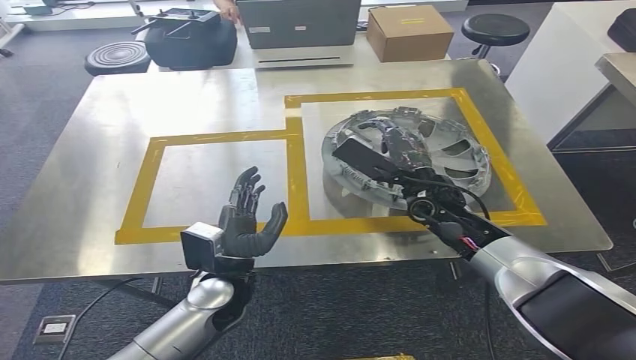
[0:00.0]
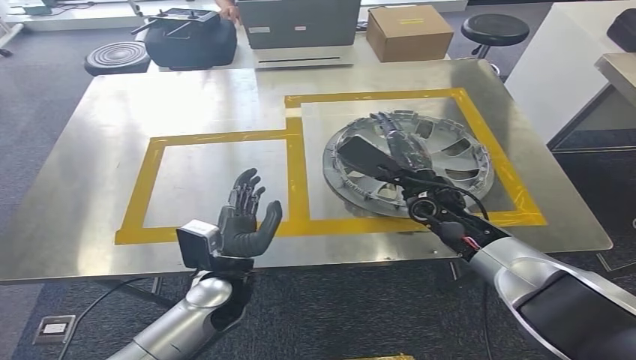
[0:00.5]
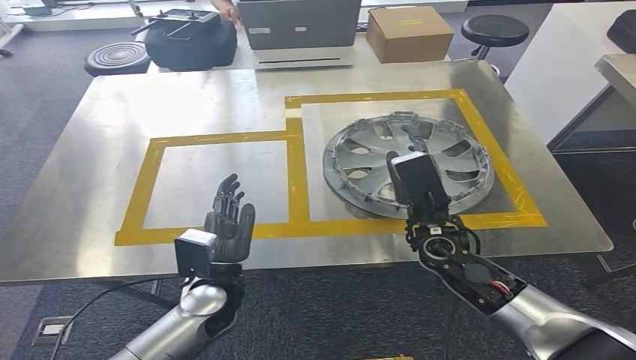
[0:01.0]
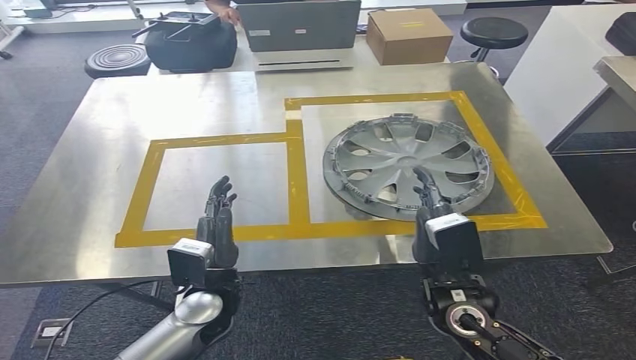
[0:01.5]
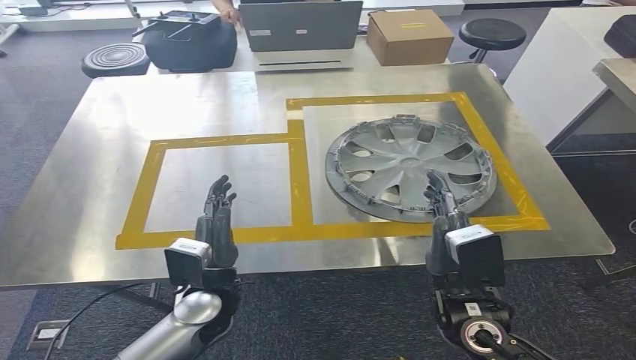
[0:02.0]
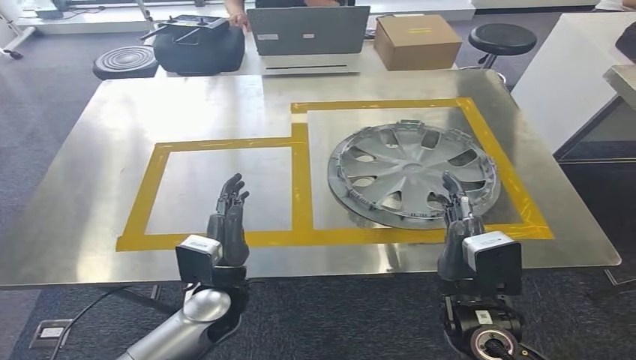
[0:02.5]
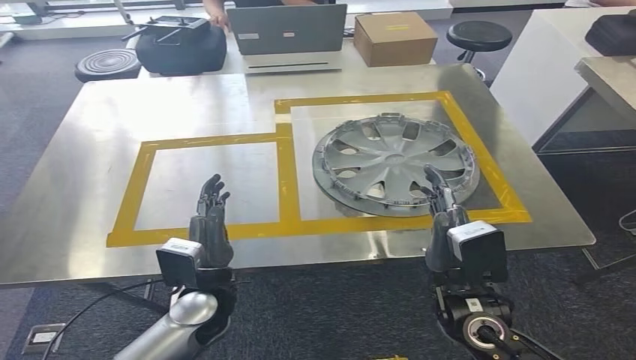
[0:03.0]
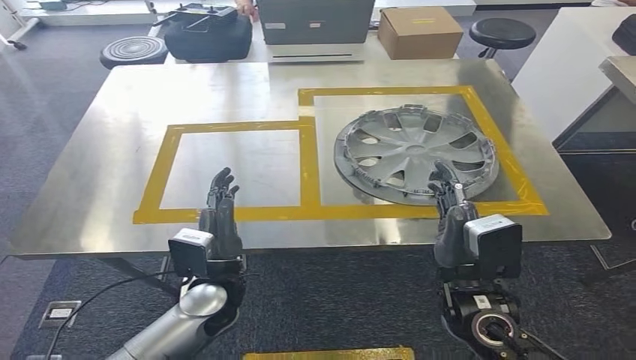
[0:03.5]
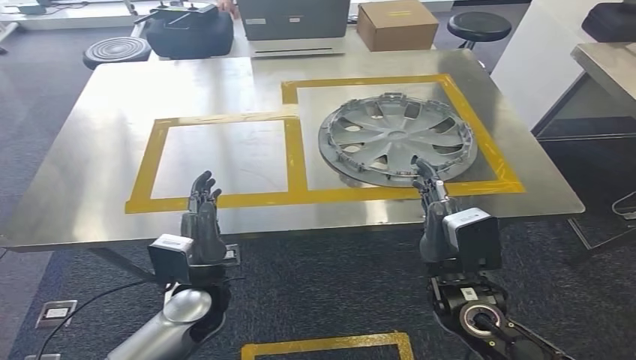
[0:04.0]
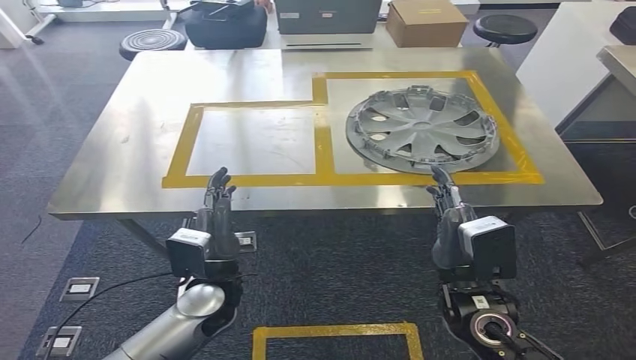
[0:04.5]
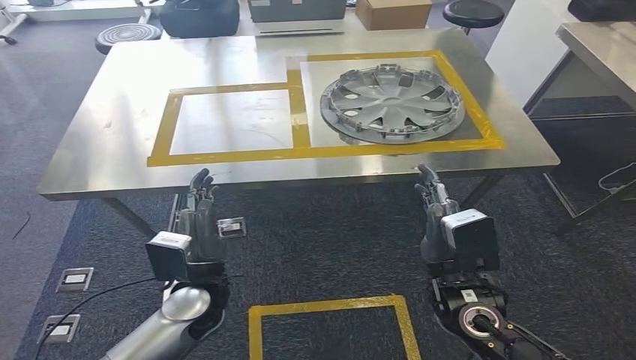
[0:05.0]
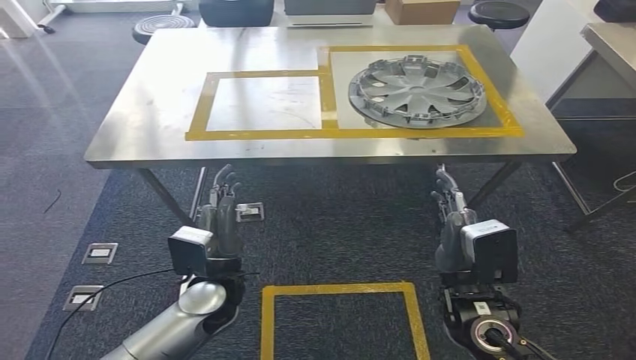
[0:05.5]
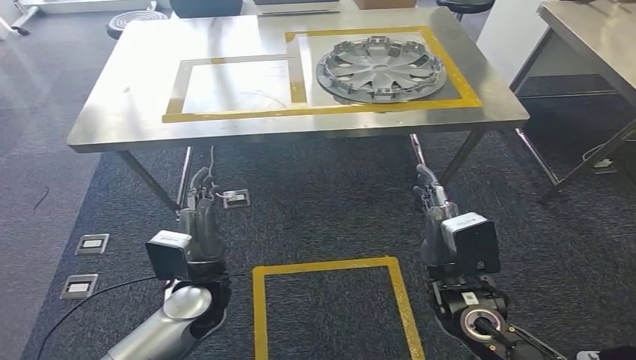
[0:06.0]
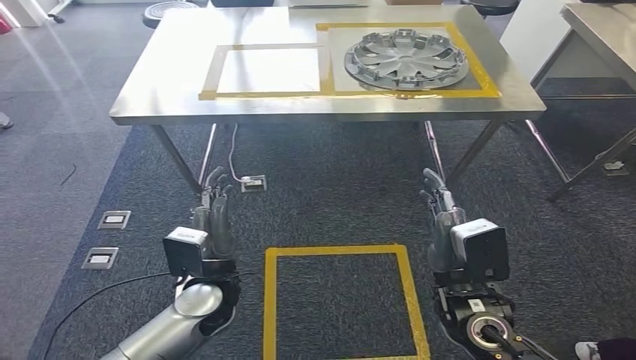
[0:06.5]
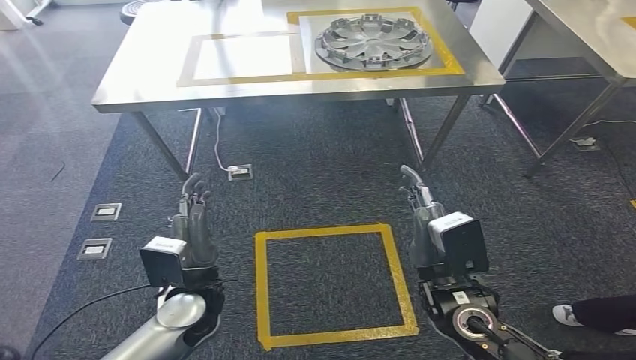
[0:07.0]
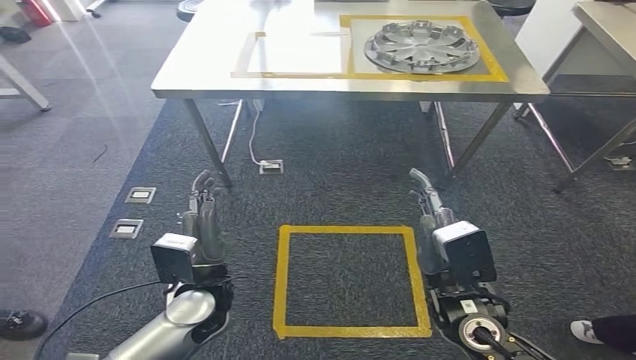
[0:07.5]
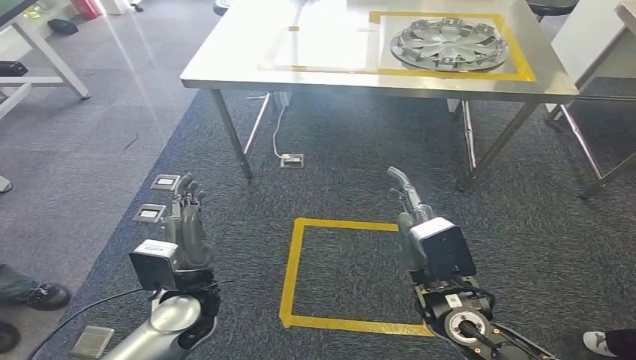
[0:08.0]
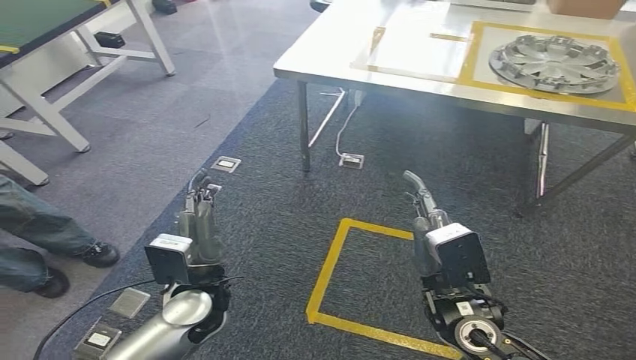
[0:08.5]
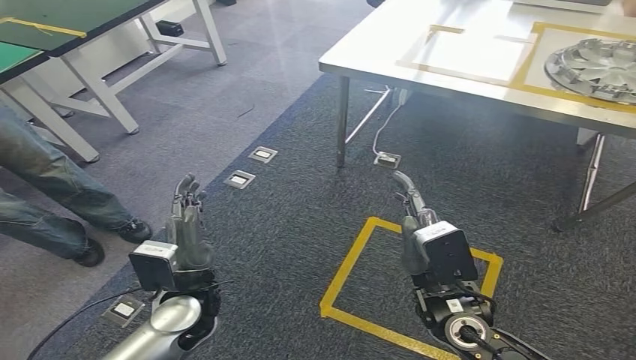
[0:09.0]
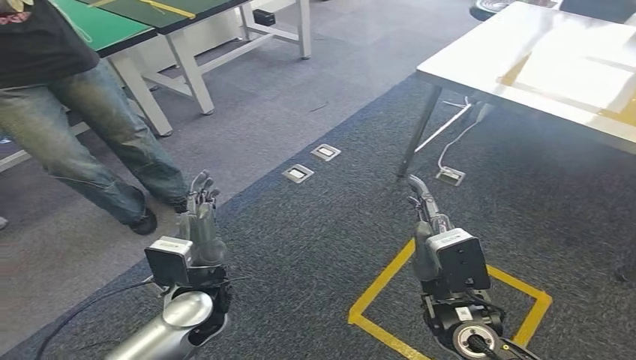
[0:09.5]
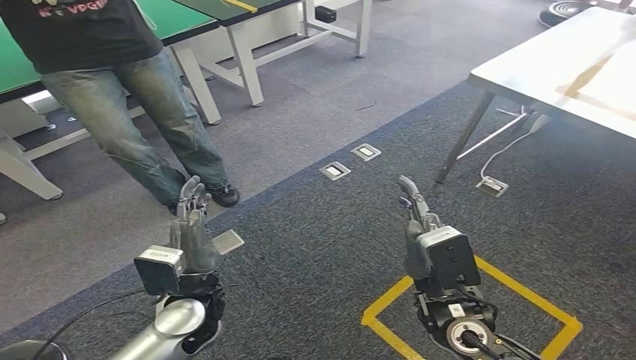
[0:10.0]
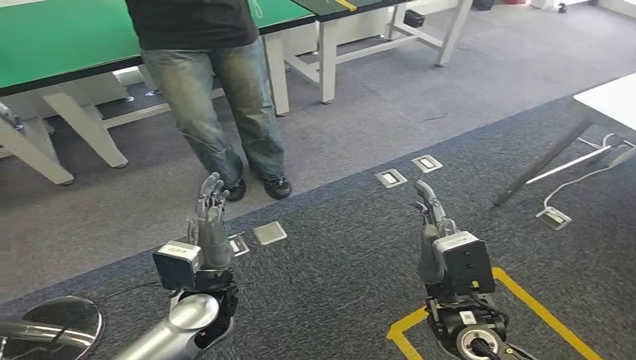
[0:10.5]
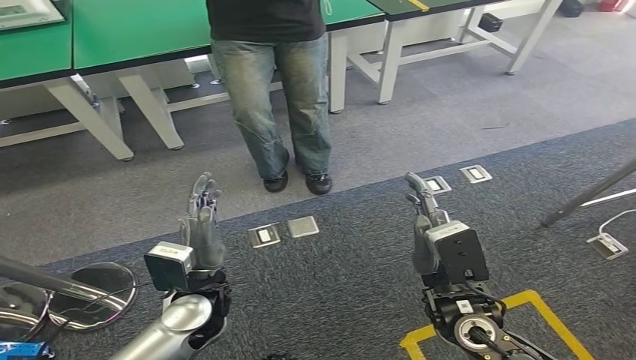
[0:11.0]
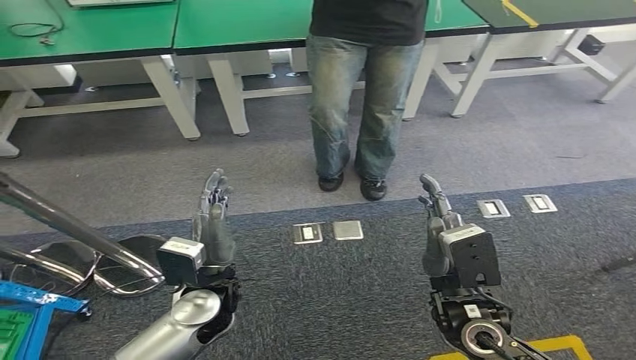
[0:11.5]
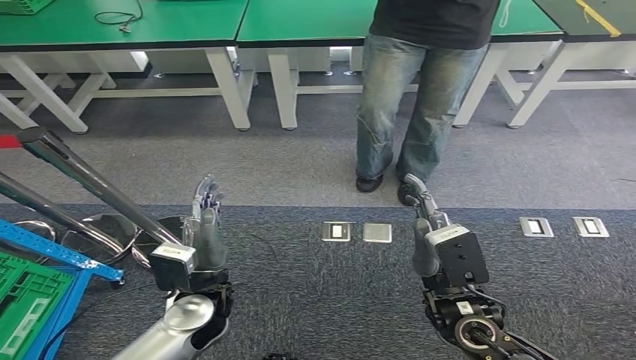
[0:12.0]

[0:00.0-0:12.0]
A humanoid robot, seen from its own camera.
Step, 0:00.0 to 0:02.5: Insert the small parts into the corresponding slots on the workbench.

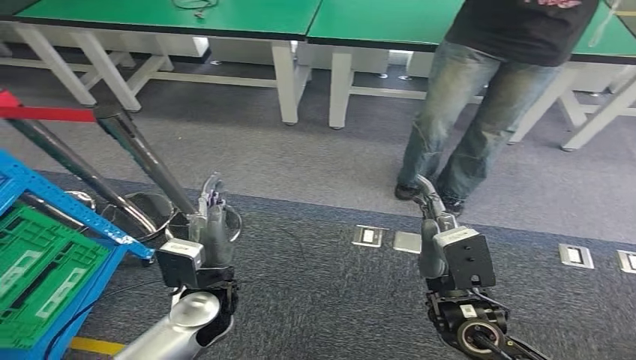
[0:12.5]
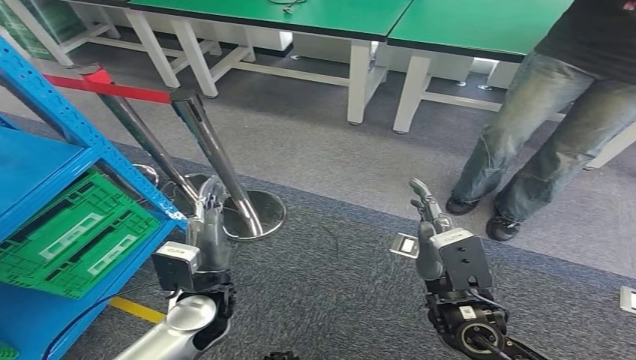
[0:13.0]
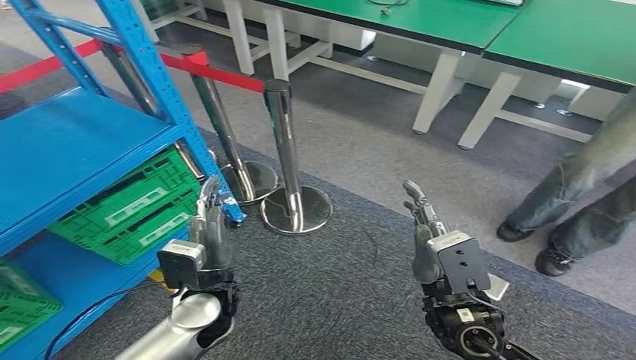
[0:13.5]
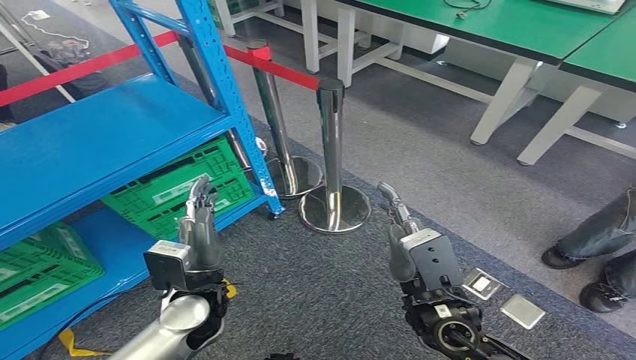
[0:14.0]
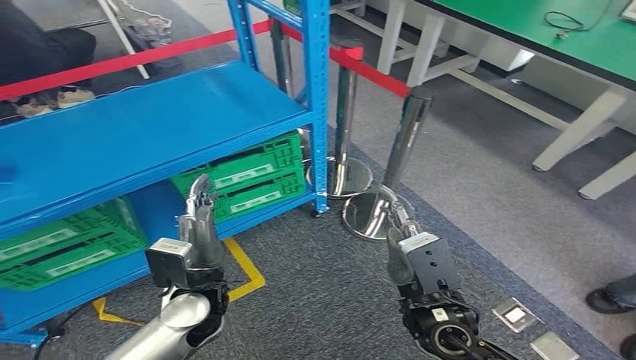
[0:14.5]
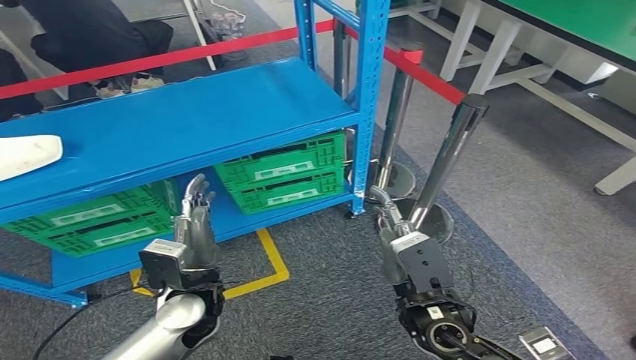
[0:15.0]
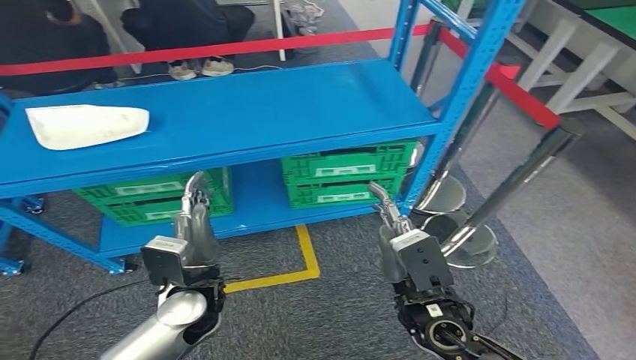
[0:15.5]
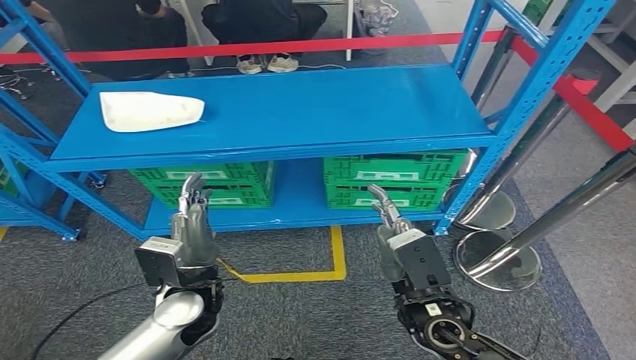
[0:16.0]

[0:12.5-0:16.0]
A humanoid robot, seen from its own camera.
Step, 0:12.5 to 0:16.0: Return to the initial position at the workbench.
